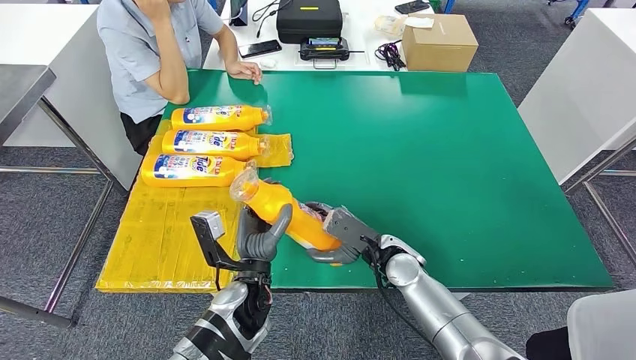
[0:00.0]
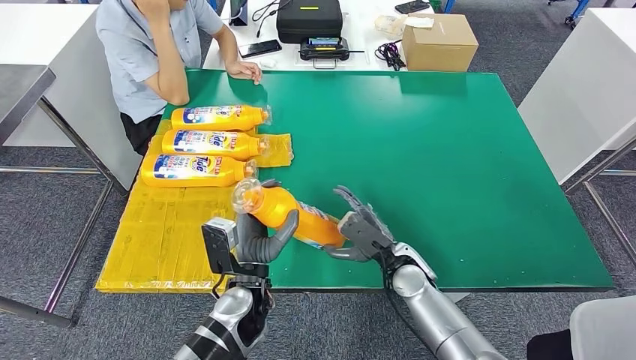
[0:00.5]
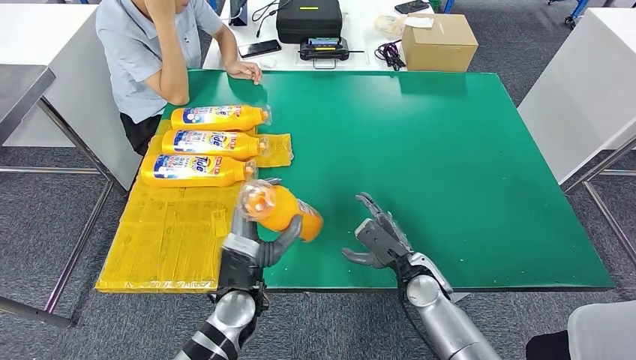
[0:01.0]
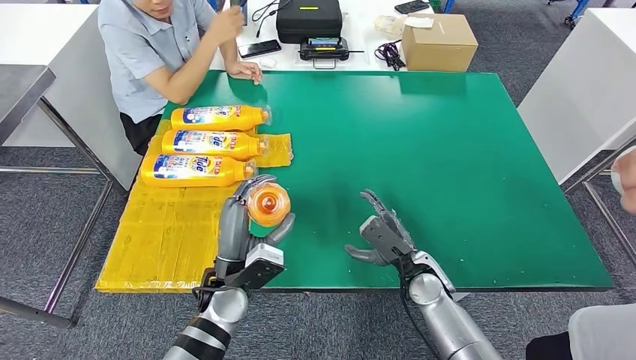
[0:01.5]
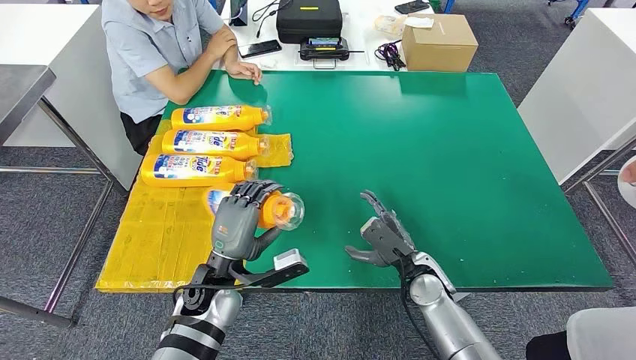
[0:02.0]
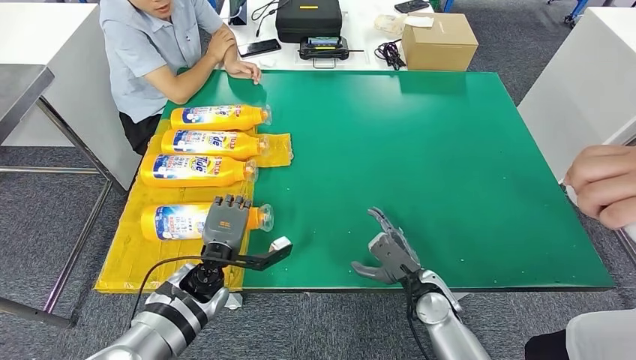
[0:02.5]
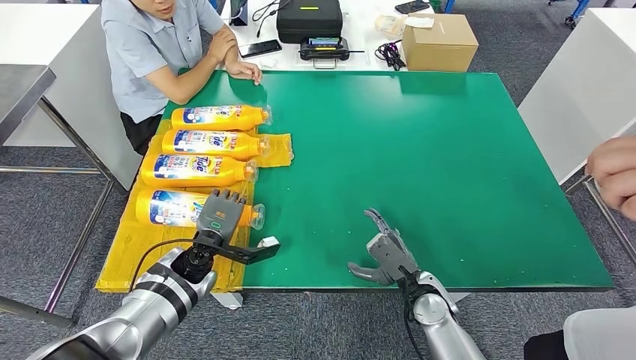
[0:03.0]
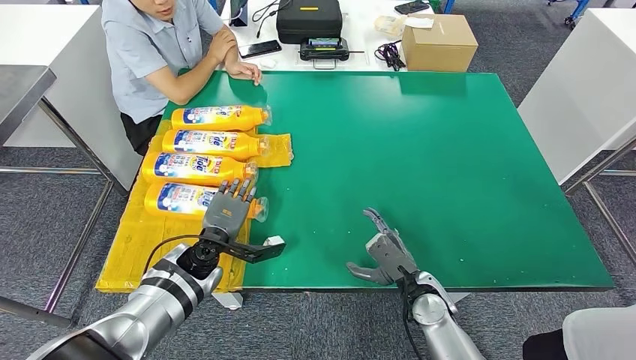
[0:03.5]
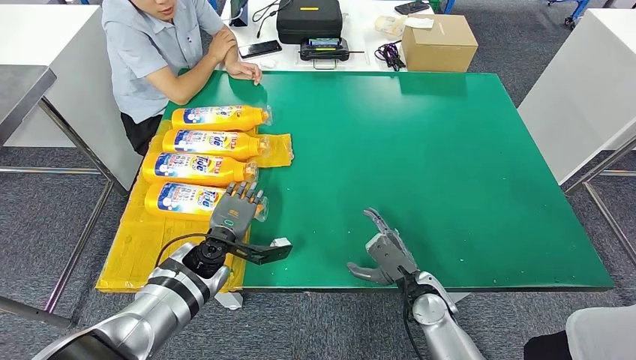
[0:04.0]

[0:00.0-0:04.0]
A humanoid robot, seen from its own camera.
Step, 0:00.0 to 0:04.0: Flip the bottle to face forward.
0:00.0 to 0:02.0: The left hand heads to the left, covering some 5 cm. The right hand goes about 5 cm to the right.
0:02.0 to 0:04.0: The left hand moves forward, approximately 5 cm.
